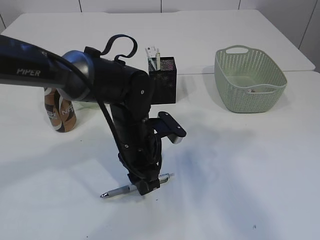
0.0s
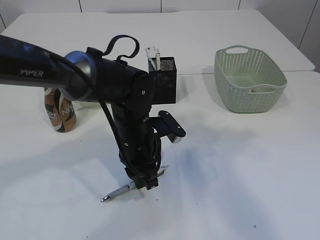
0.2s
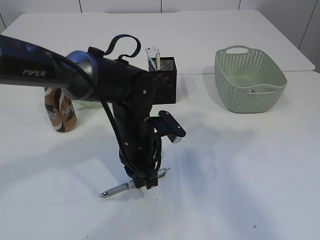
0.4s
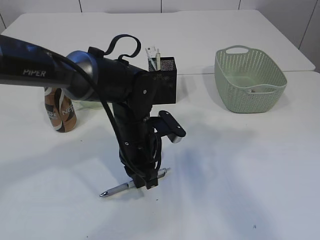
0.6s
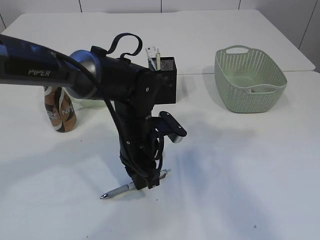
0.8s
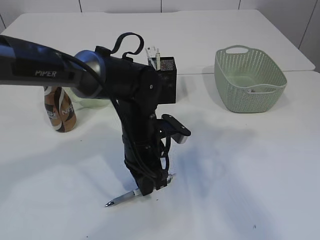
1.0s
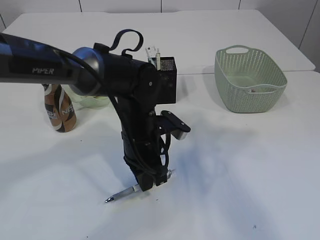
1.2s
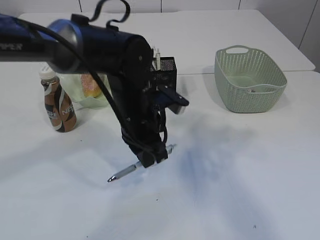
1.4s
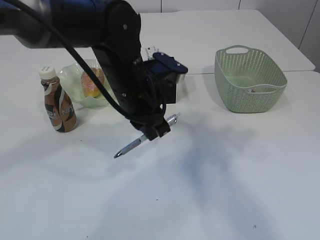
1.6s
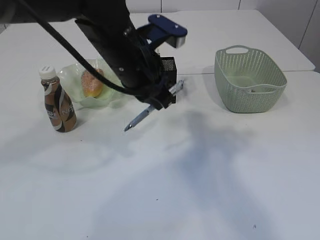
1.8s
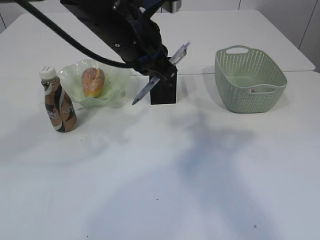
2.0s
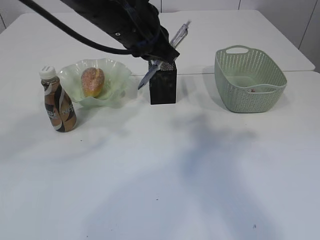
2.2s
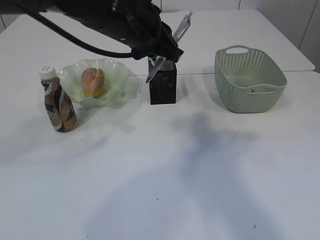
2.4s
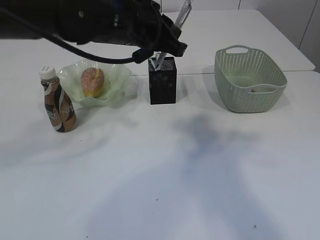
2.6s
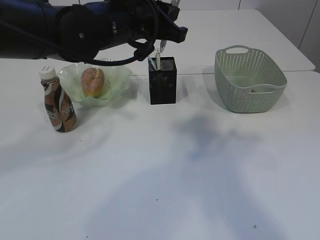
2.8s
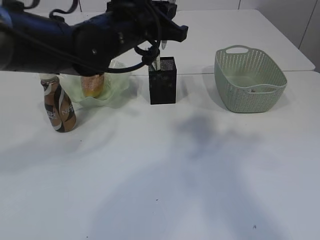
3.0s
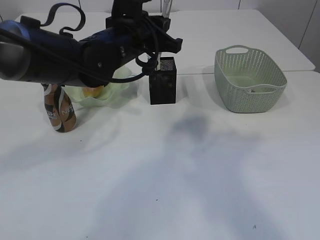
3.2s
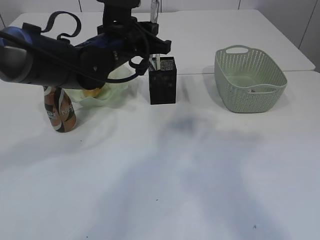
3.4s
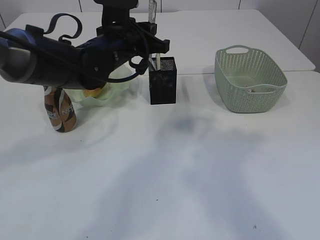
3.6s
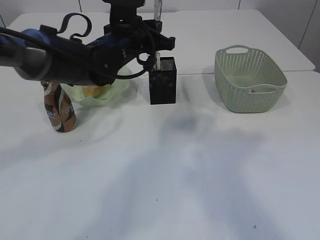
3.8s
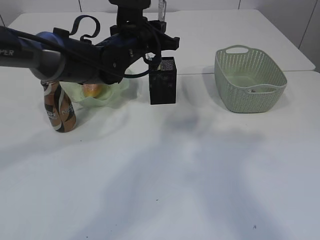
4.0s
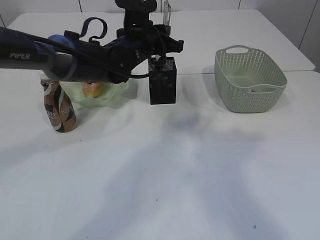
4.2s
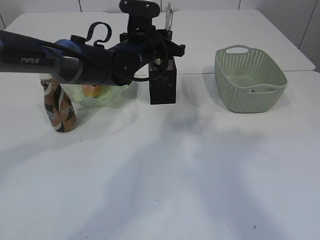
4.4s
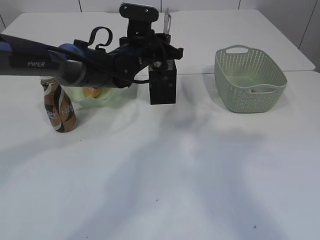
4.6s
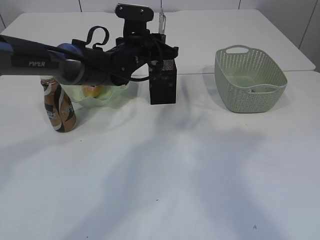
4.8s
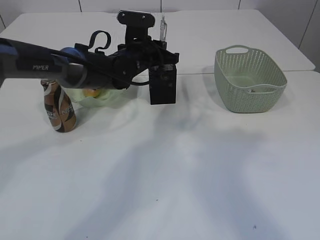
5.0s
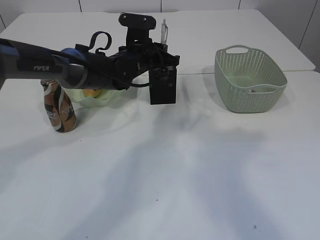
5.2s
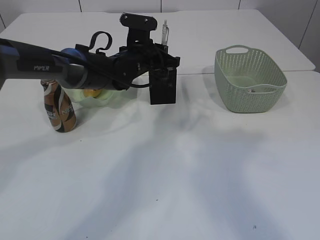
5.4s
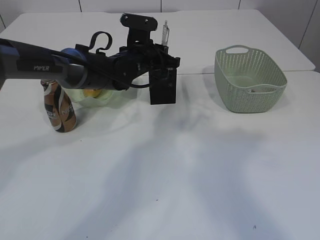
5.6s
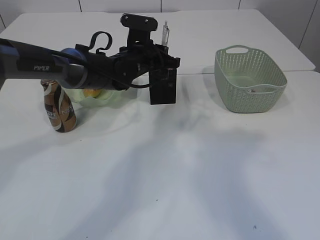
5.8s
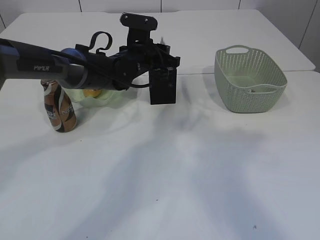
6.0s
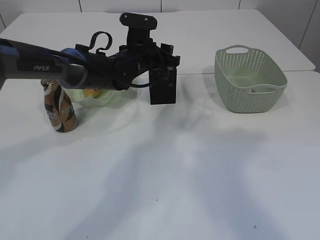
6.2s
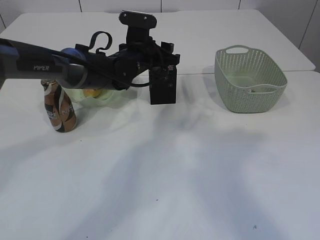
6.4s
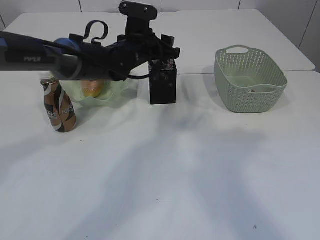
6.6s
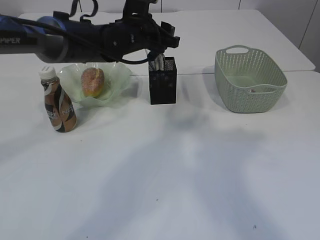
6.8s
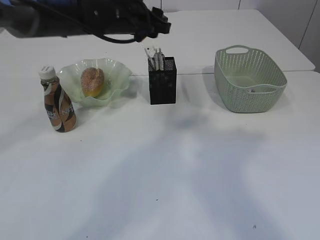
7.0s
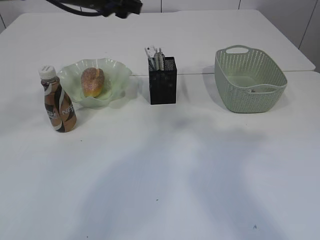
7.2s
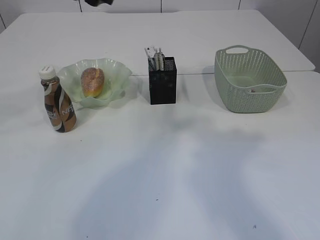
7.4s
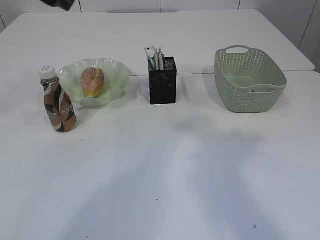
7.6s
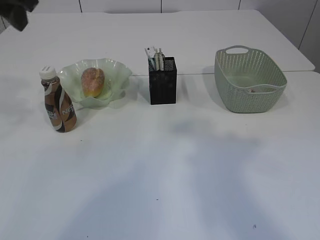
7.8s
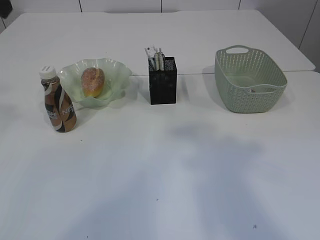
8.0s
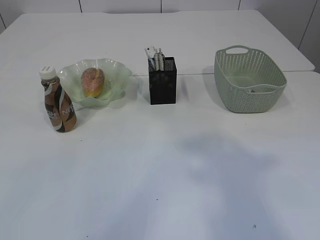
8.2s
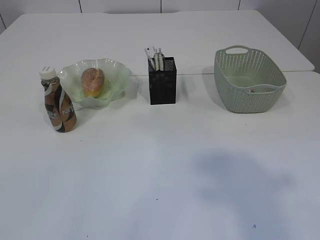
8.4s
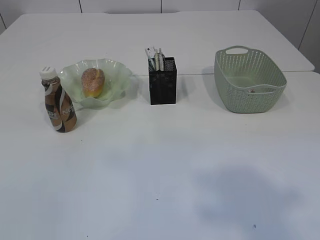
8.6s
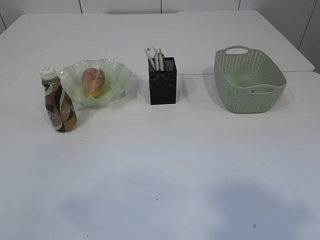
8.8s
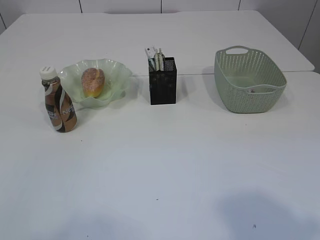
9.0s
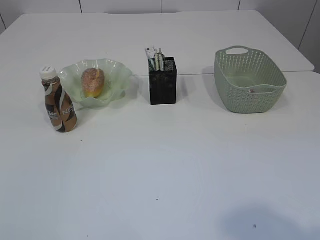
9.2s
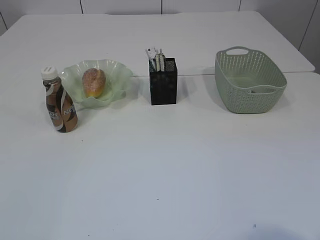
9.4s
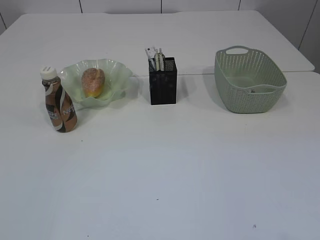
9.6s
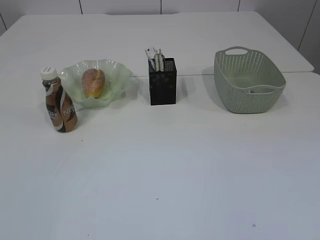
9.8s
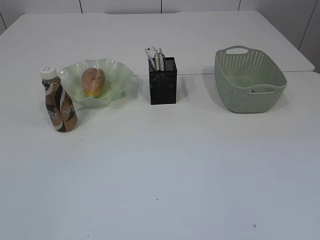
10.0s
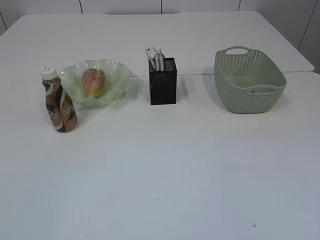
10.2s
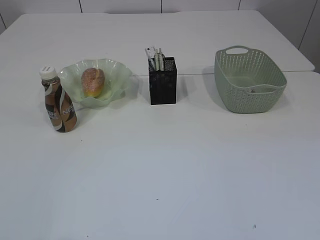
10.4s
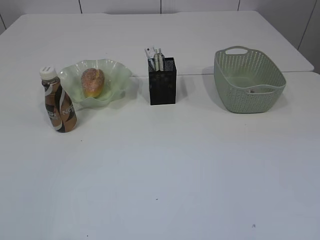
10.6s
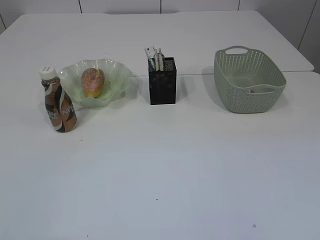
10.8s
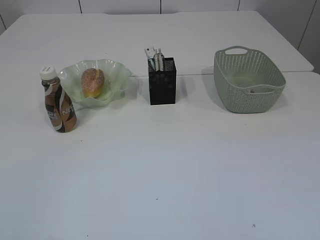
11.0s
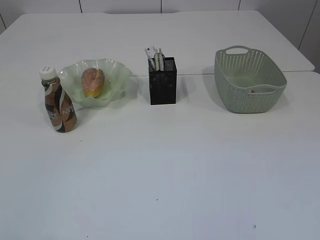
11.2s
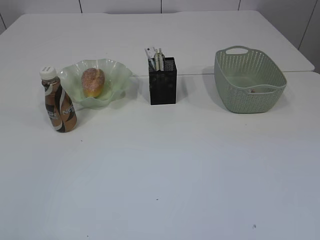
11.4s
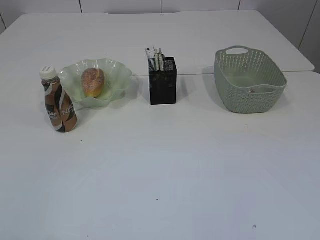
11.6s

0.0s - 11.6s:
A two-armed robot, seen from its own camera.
Step, 1.6s - 6.8s: Place the pen into the pen holder.
0.0s - 1.4s: The left gripper travels upward by some 5 cm, and closes up.
1.4s - 2.8s: The left gripper heads upward, covering approximately 10 cm.
2.8s - 4.4s: The left gripper is displaced forward and downward by roughly 15 cm.
4.4s - 5.8s: The grippers make only small movements.
5.8s - 7.2s: The left gripper travels upward and to the left by about 15 cm, and opens.
7.2s - 8.8s: The left gripper goes some 50 cm backward and to the left. Meanwhile the right gripper heads backward, covering approximately 15 cm.
